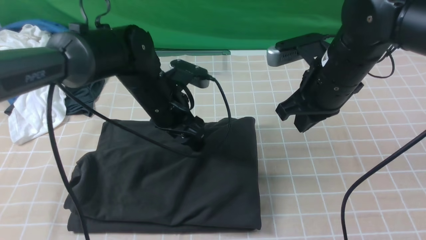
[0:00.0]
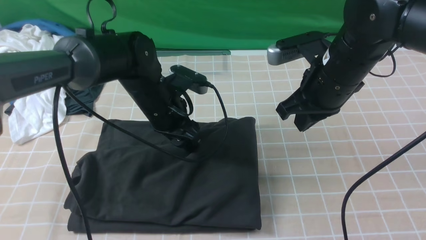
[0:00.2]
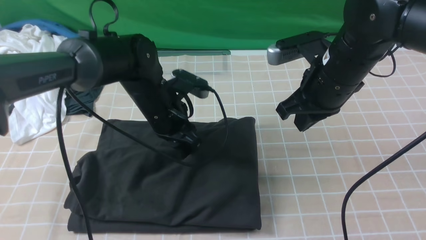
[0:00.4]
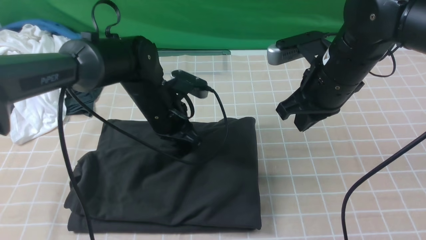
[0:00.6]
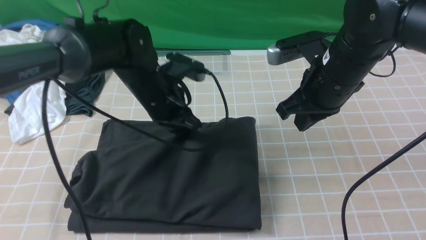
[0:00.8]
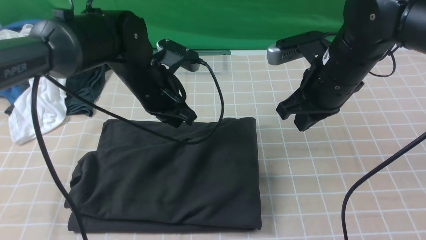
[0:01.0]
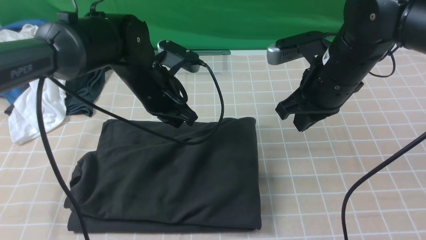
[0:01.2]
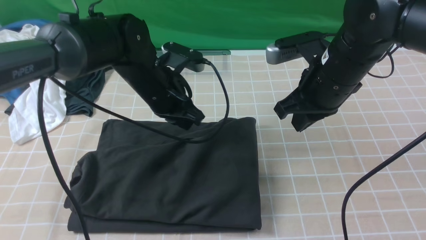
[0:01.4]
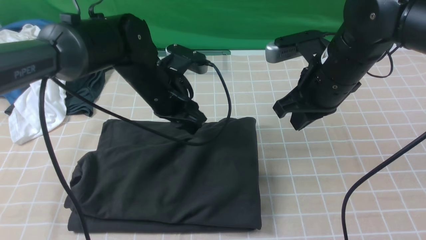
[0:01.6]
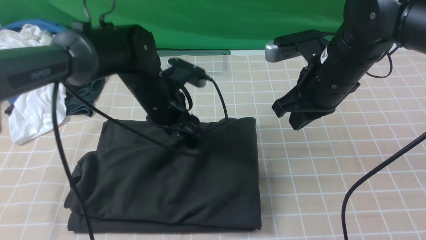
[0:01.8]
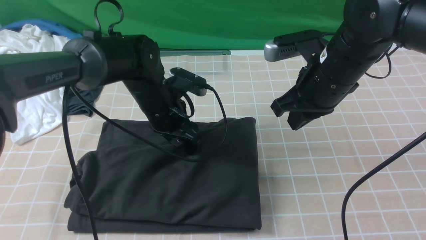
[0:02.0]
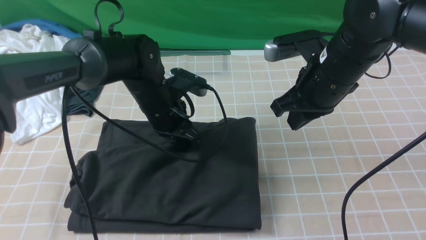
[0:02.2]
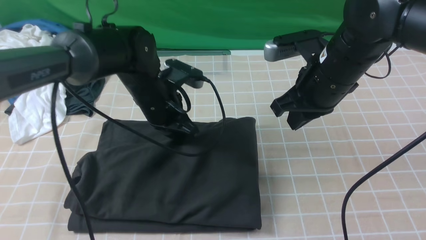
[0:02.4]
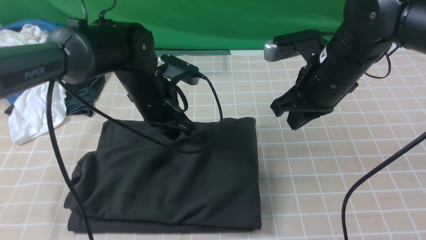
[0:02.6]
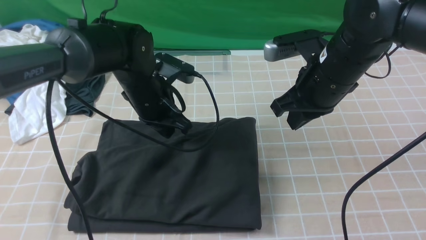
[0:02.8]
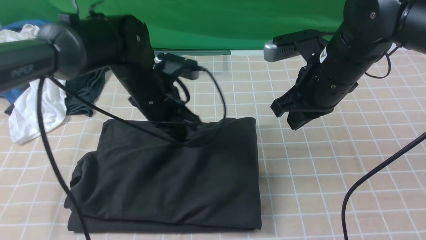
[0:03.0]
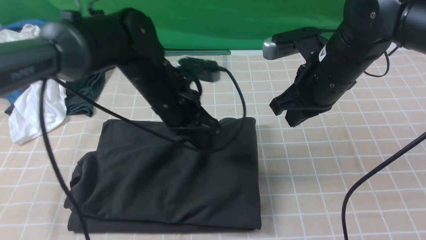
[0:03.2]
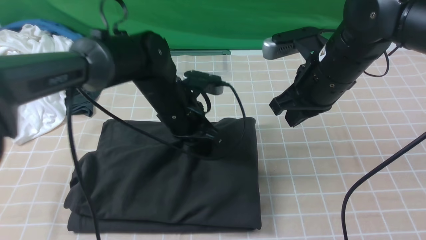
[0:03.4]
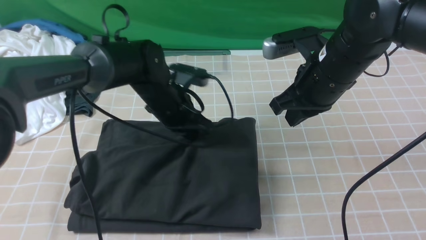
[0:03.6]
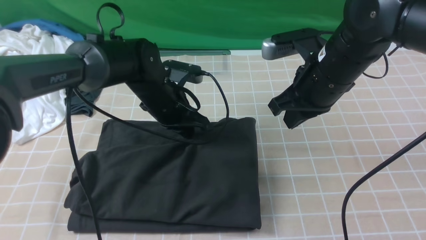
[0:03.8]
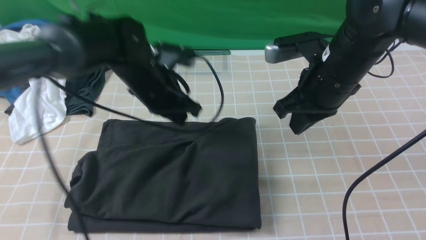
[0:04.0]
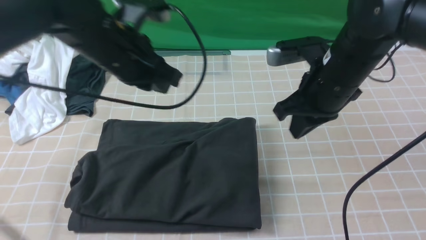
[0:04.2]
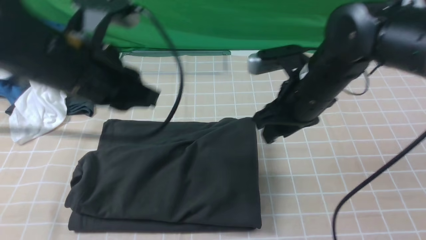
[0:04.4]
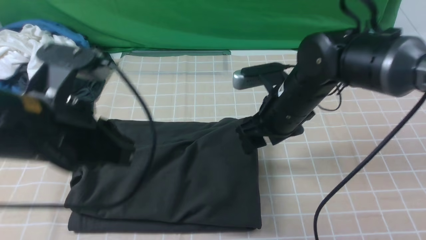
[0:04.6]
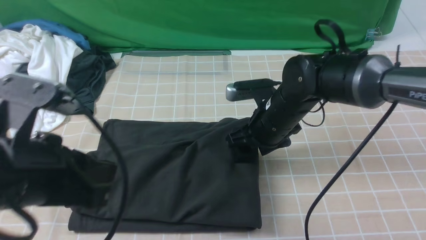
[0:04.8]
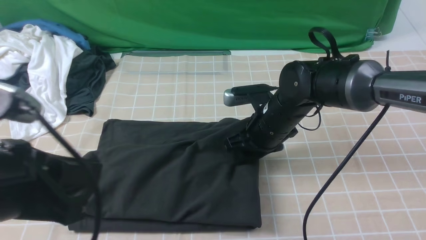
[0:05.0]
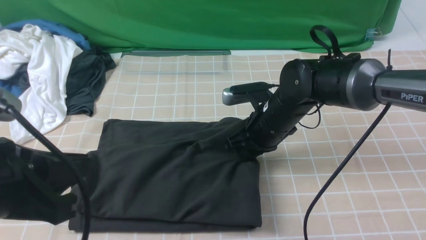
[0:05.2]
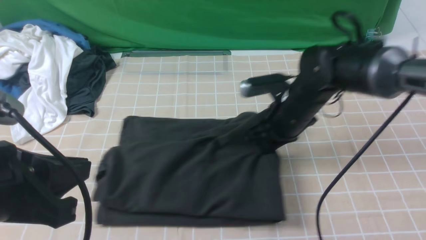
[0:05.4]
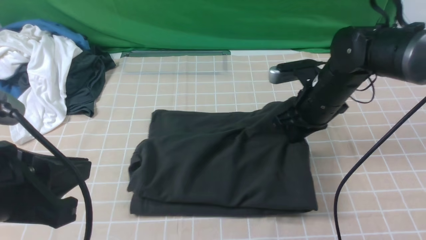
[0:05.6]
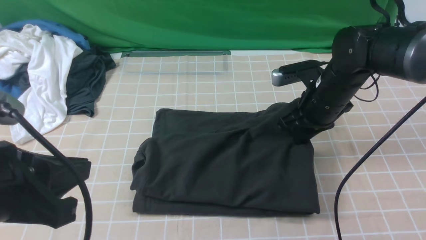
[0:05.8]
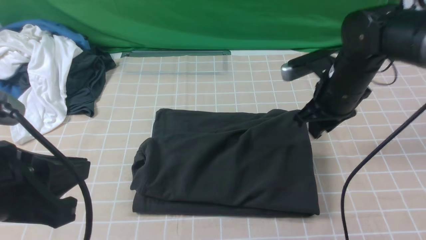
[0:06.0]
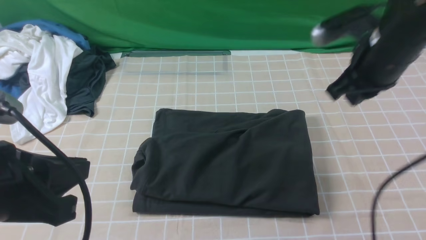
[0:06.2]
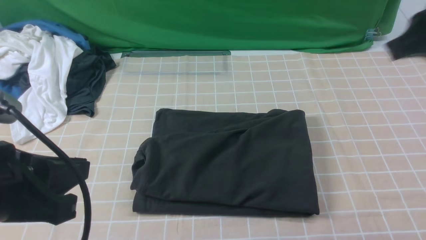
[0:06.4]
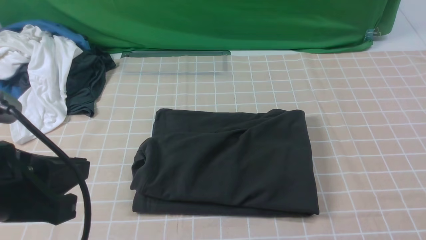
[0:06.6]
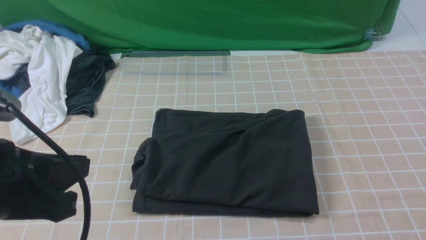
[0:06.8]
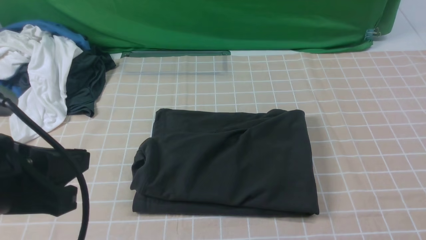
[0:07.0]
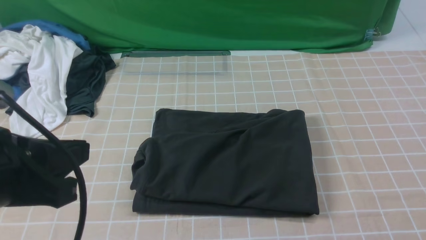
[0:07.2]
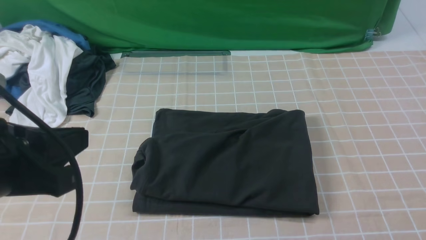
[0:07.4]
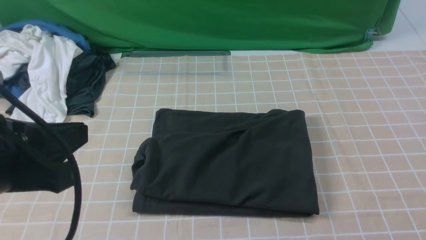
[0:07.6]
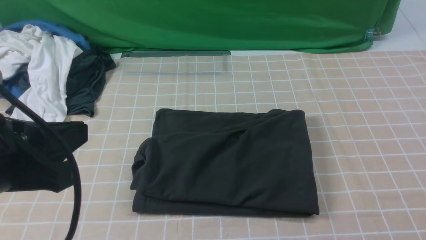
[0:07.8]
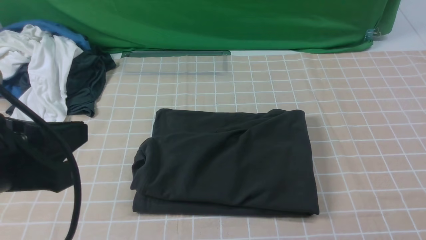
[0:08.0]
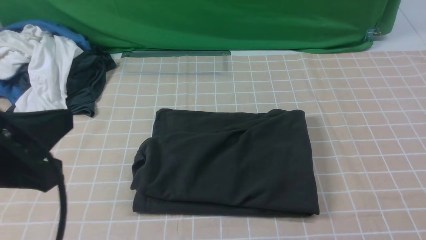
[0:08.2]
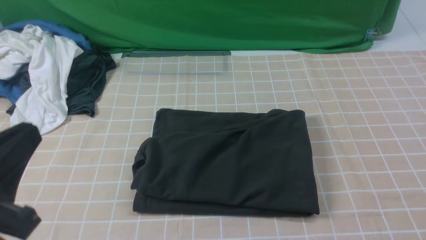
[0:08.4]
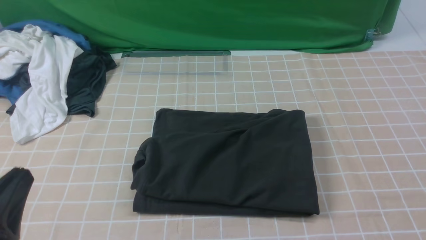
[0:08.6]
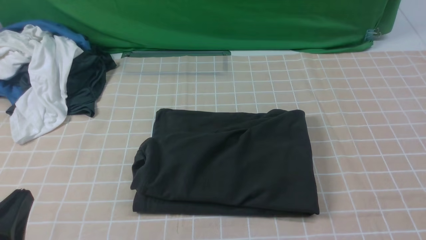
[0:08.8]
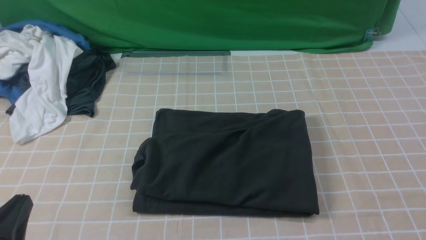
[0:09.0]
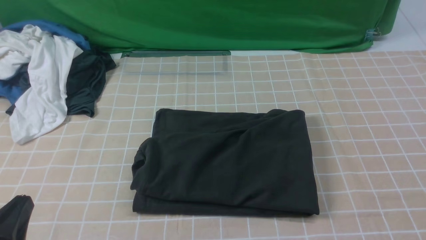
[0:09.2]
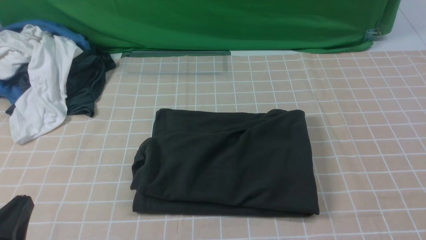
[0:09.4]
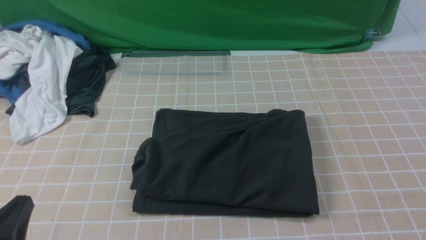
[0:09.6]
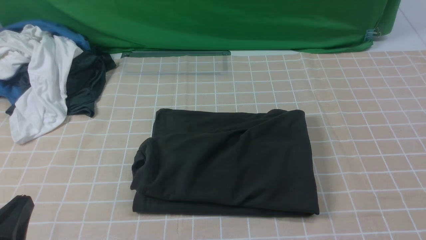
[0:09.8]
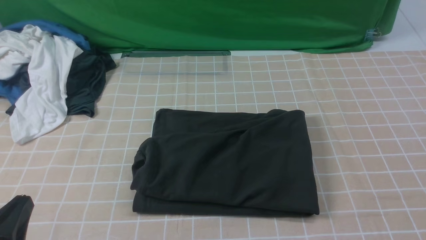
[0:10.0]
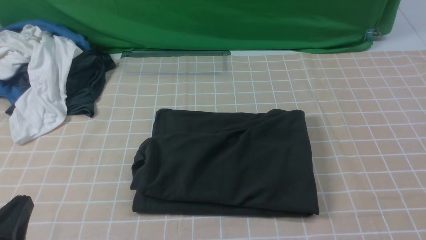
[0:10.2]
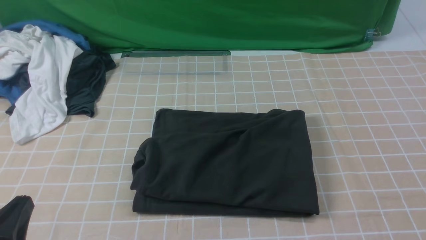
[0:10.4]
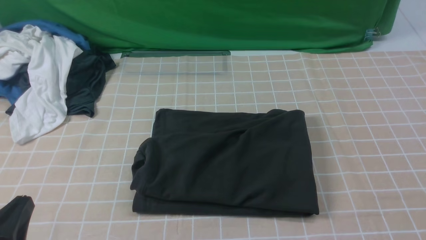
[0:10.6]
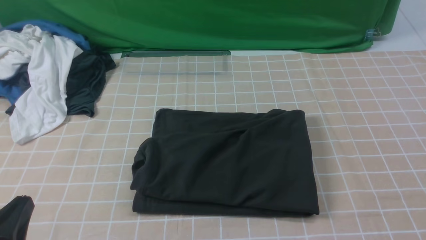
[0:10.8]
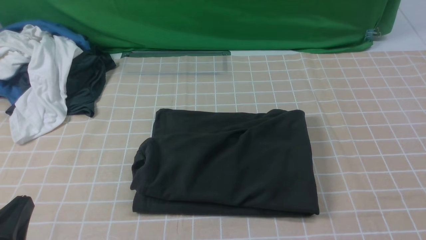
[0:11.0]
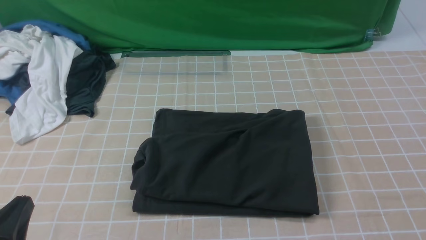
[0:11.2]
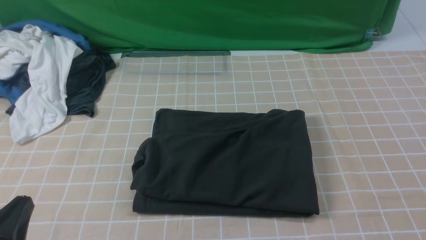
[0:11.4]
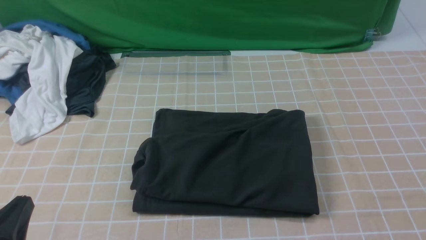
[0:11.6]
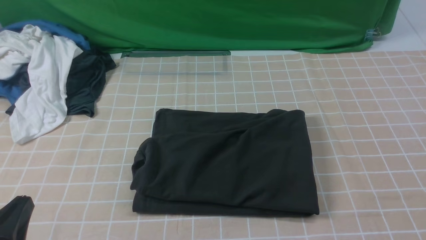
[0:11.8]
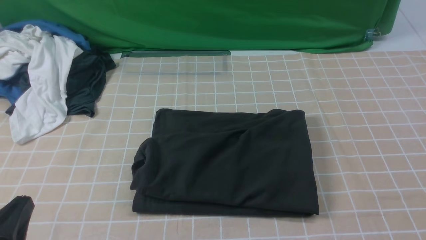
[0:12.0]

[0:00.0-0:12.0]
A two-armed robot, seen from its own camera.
0:00.0 to 0:01.6: The left gripper closes up.
0:01.6 to 0:03.0: The left gripper closes up.
0:03.0 to 0:04.4: The left gripper is displaced upward, backward and to the left by roughly 15 cm. Meanwhile the right gripper opens its fingers.
0:04.4 to 0:06.0: The left gripper is displaced backward by about 15 cm, while the right gripper travels to the right by roughly 5 cm, and closes up.
0:06.0 to 0:07.6: The right gripper goes approximately 35 cm backward.
0:07.6 to 0:09.0: The left gripper shifts some 15 cm downward and backward.

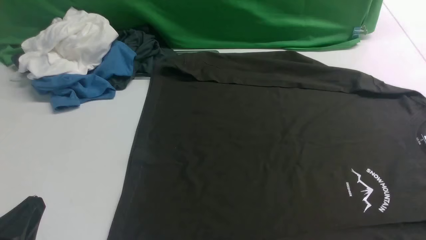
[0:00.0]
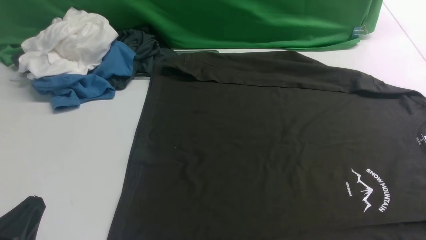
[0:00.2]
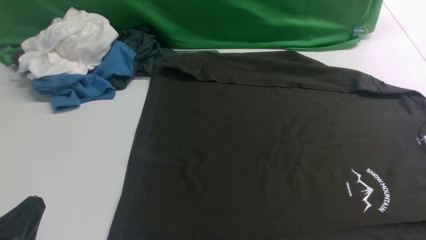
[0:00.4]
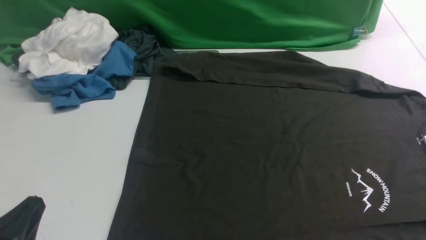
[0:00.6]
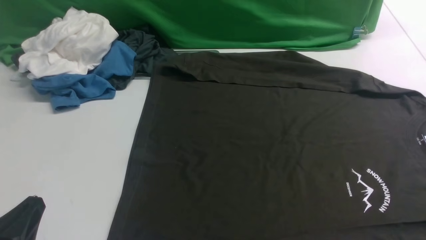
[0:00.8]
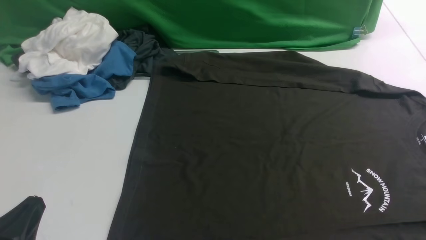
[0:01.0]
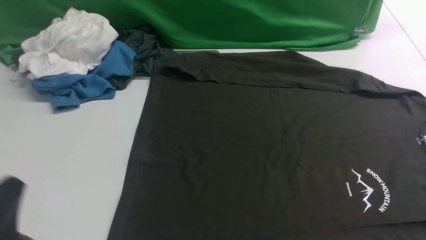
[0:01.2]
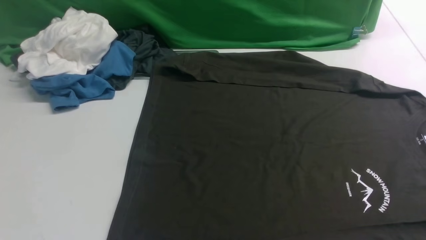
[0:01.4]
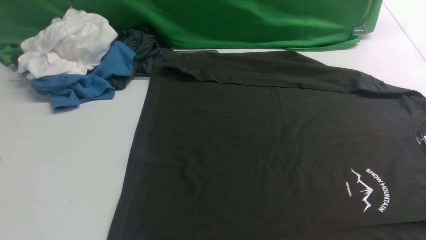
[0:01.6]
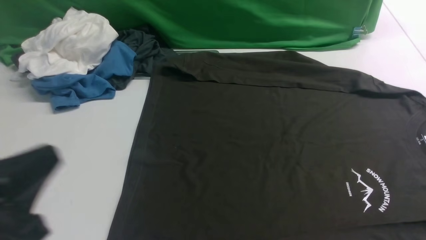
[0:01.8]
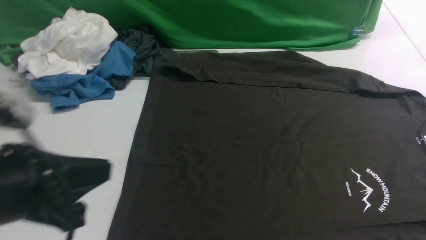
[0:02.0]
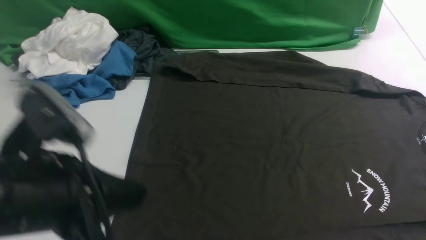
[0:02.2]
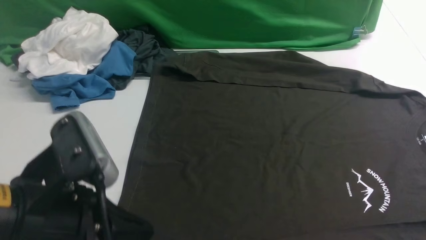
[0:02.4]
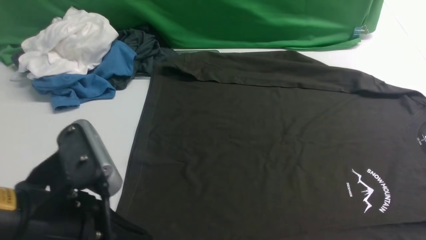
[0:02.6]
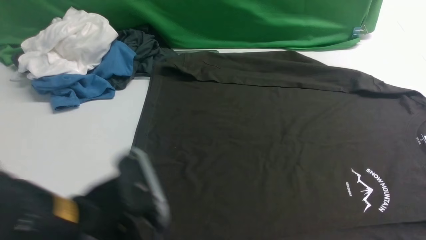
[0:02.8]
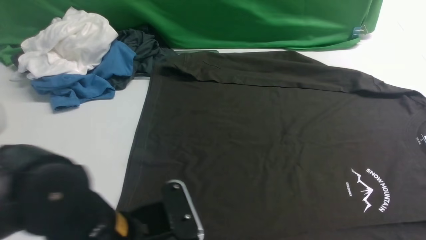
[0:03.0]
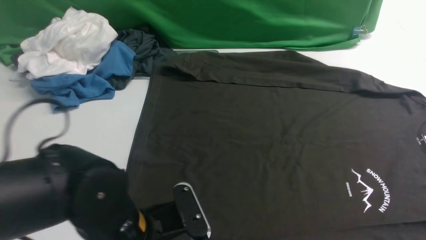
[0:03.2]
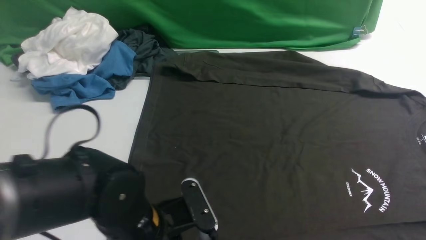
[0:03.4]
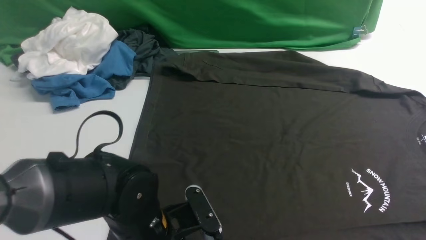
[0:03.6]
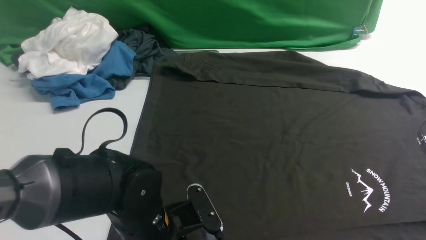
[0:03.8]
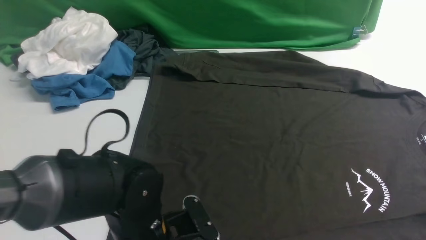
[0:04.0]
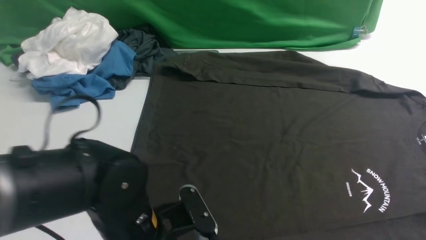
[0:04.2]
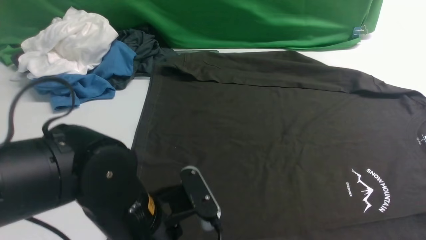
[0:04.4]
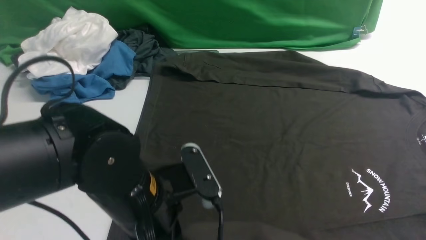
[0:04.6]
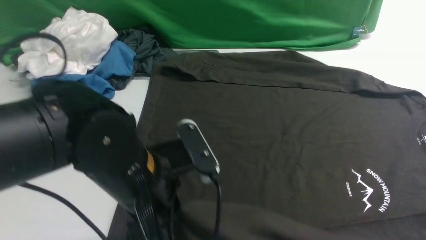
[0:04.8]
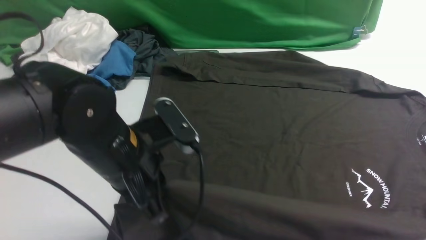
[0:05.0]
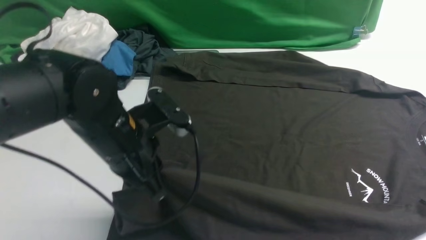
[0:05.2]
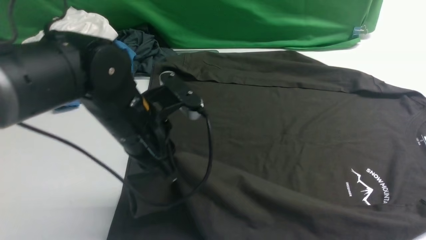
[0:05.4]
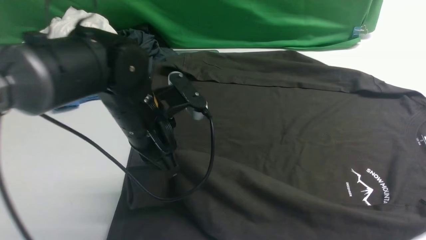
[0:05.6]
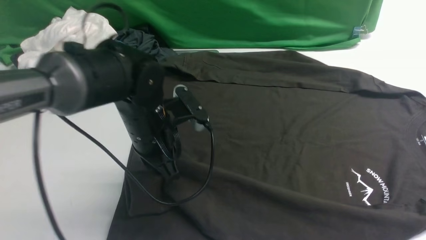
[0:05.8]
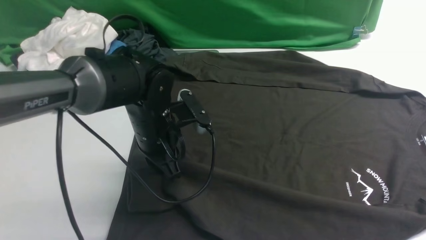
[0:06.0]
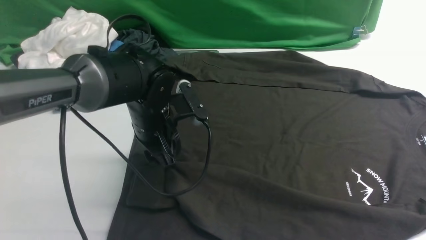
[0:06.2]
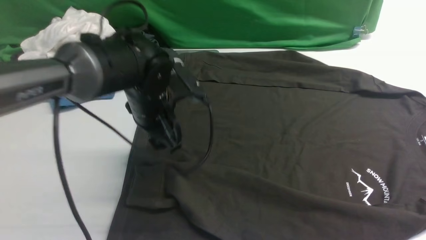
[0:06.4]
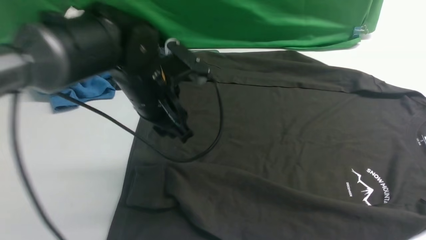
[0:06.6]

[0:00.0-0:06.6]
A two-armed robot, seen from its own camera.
Step, 0:00.0 to 0:04.2: use the left arm to clamp the cuff closest to it.
Step, 0:04.6 to 0:06.4: use the left arm to drag and place the cuff at the centered position on the left edge of the fabric.
0:00.0 to 0:01.6: The left gripper travels upward by some 10 cm.
0:01.6 to 0:03.2: The right gripper goes roughly 20 cm upward. The left gripper moves to the right, forward and downward, about 20 cm, and opens up.
0:03.2 to 0:05.0: The left gripper is displaced forward and upward by about 10 cm, and closes up.
0:05.0 to 0:06.6: The left gripper travels forward by about 10 cm, and opens its fingers.
